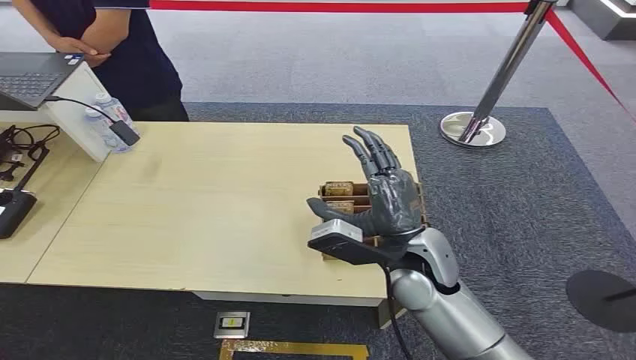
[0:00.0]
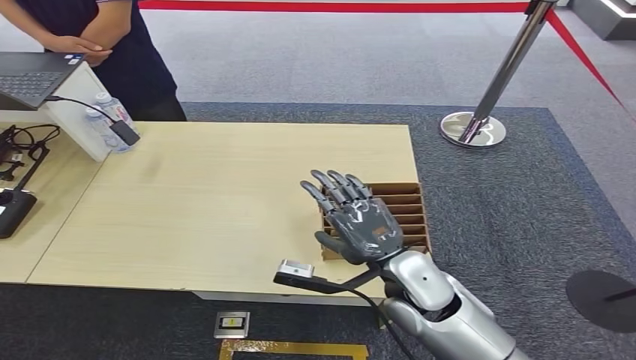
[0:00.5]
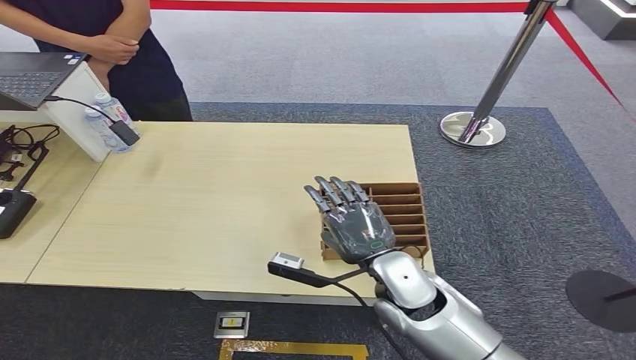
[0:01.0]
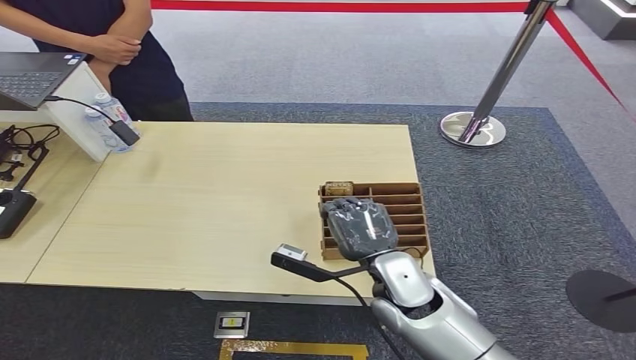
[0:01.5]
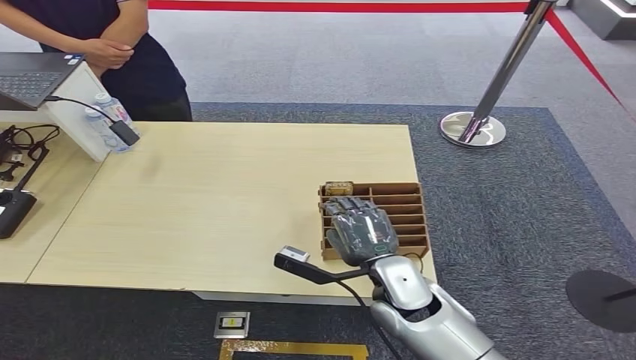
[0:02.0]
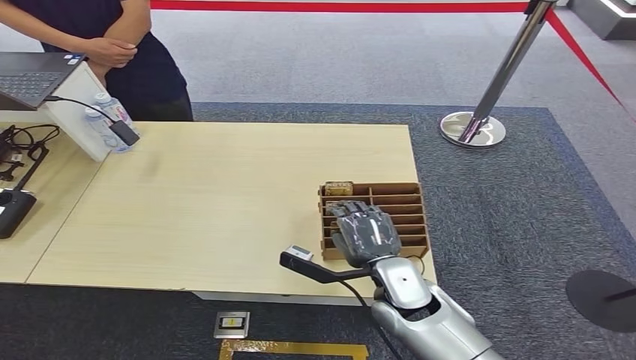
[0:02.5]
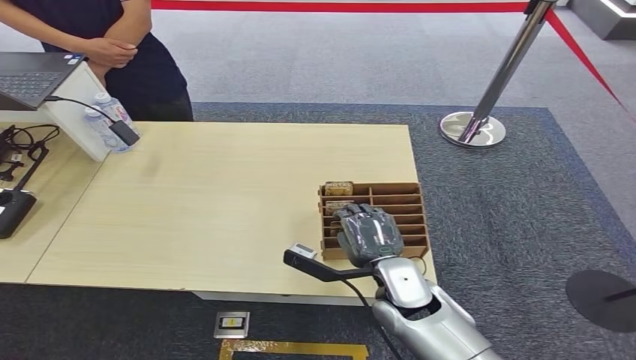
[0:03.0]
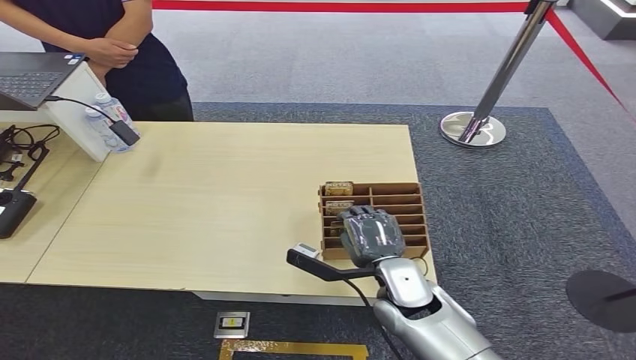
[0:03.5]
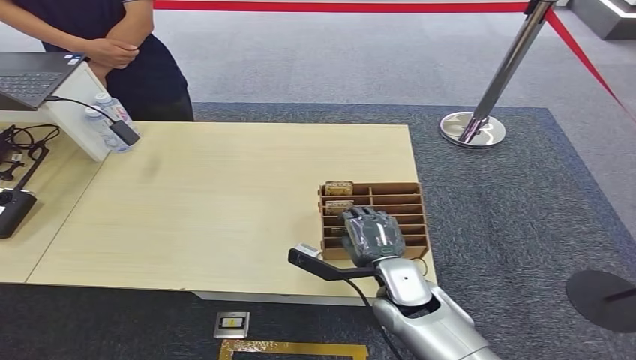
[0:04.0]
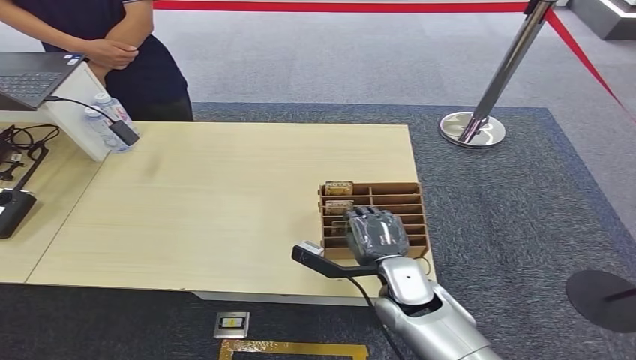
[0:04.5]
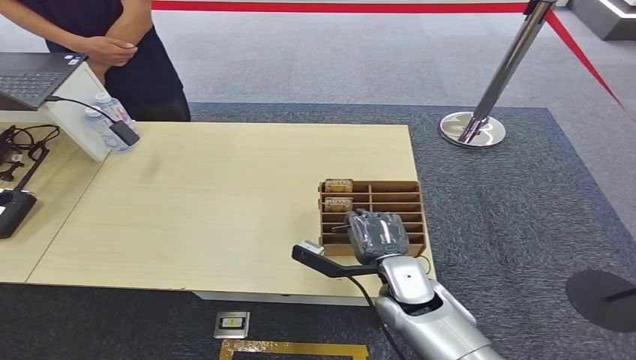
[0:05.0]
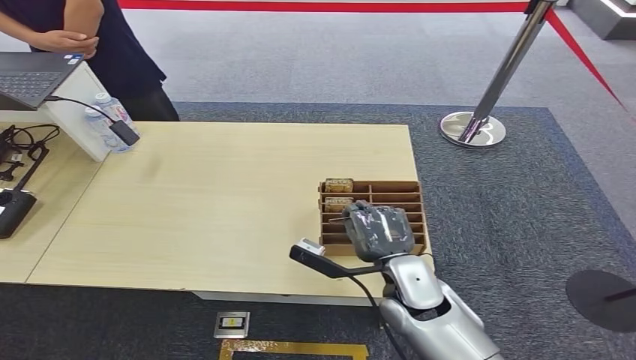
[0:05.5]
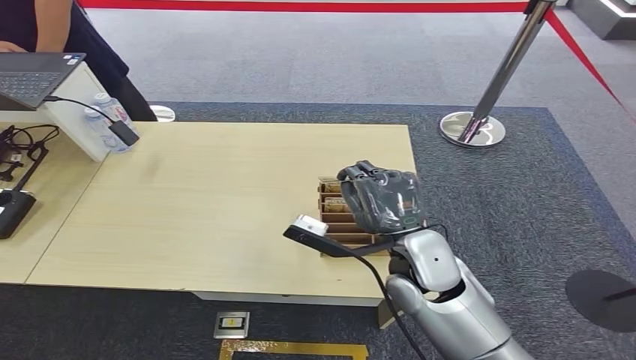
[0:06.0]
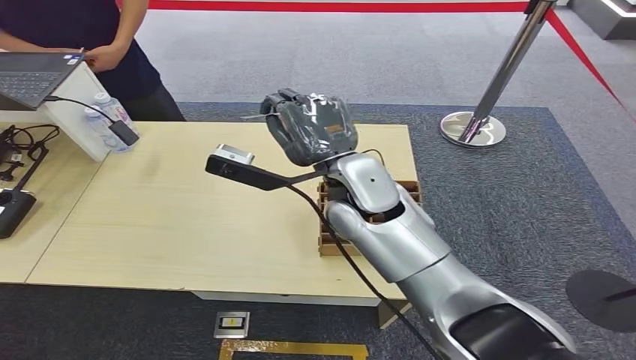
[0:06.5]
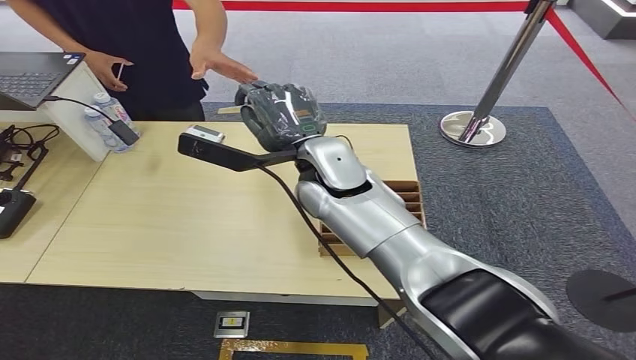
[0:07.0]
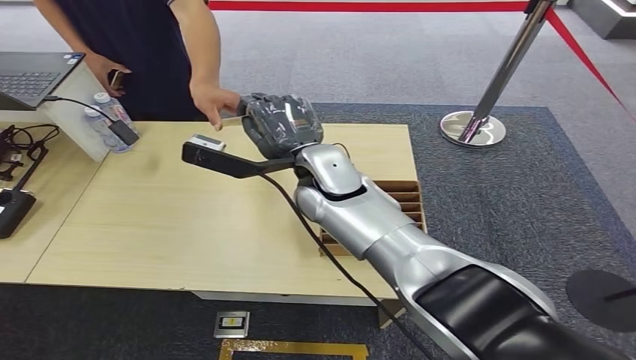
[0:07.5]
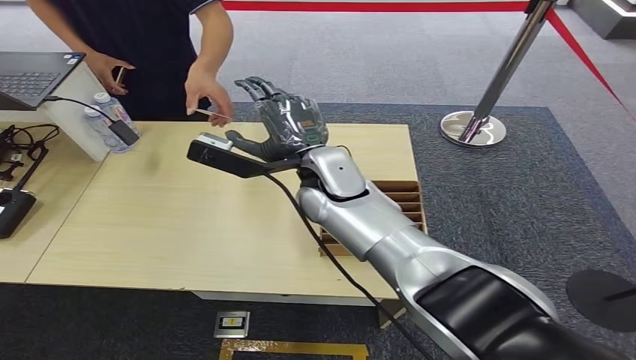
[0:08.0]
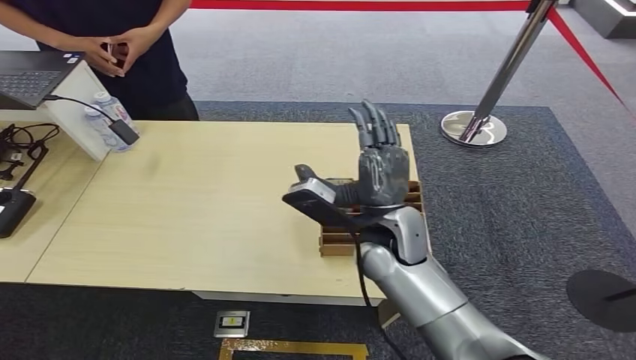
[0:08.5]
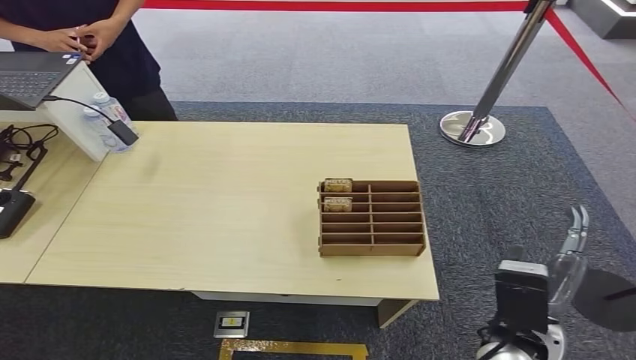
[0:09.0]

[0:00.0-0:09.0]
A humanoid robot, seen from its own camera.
Step, 0:00.0 to 0:06.0: Pick up the key card from the card box.
Step, 0:07.0 to 0:09.0: Hand the key card to the target.
0:02.0 to 0:04.5: The hands move only a little.
0:07.0 to 0:09.0: The right hand moves backward, to the right and downward, approximately 35 cm.

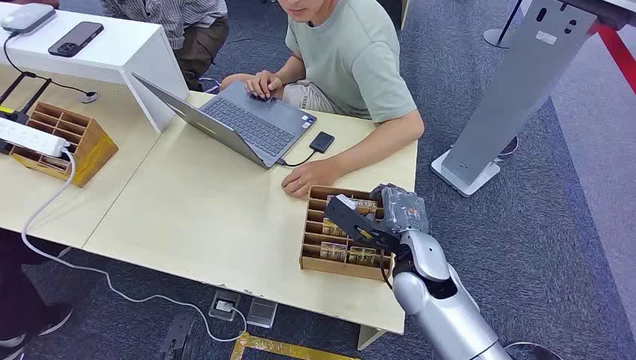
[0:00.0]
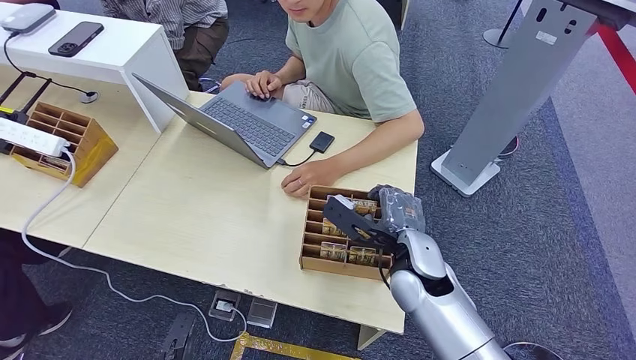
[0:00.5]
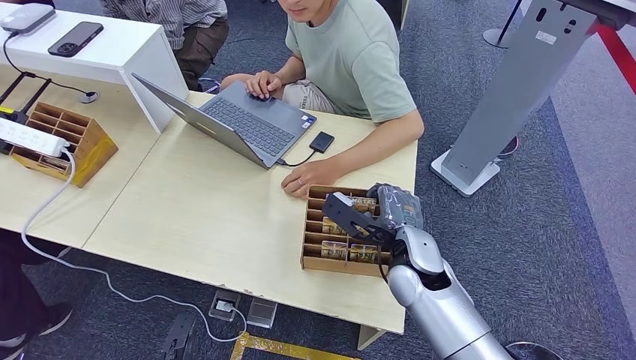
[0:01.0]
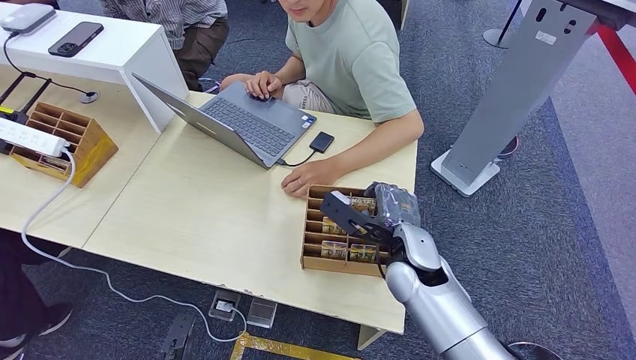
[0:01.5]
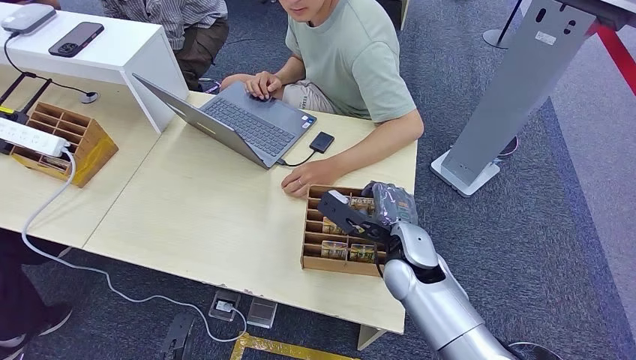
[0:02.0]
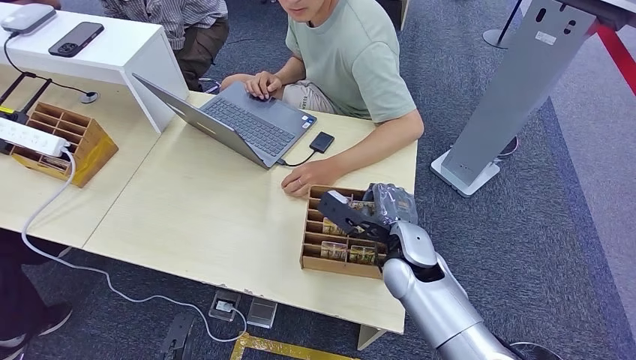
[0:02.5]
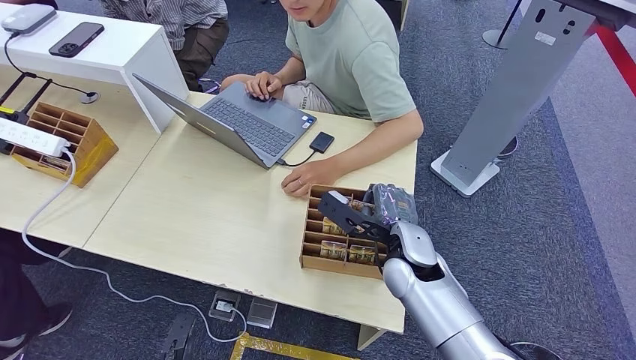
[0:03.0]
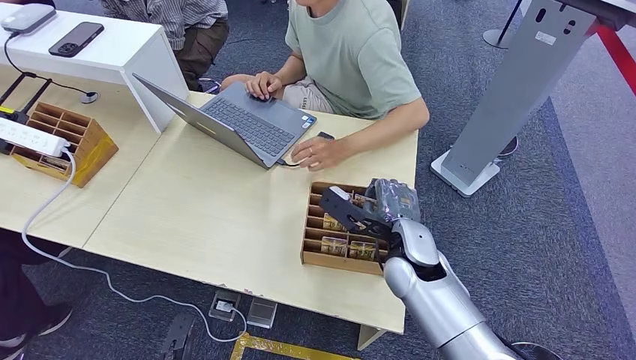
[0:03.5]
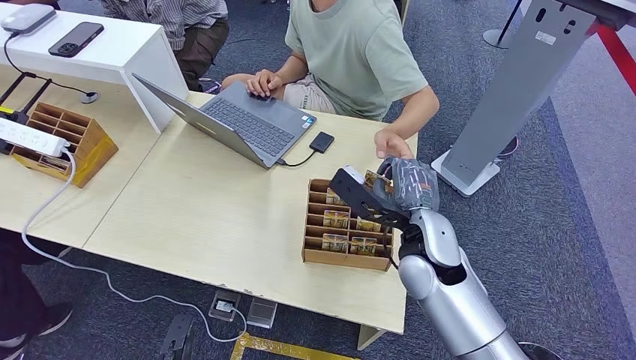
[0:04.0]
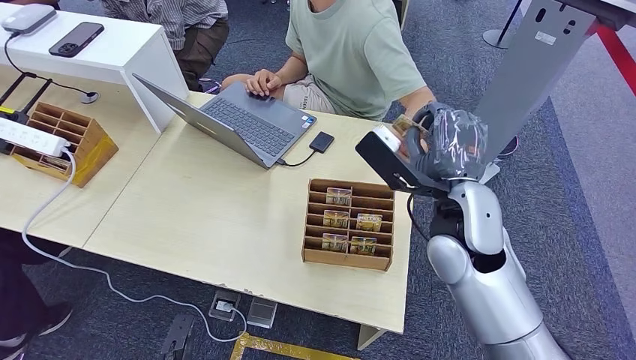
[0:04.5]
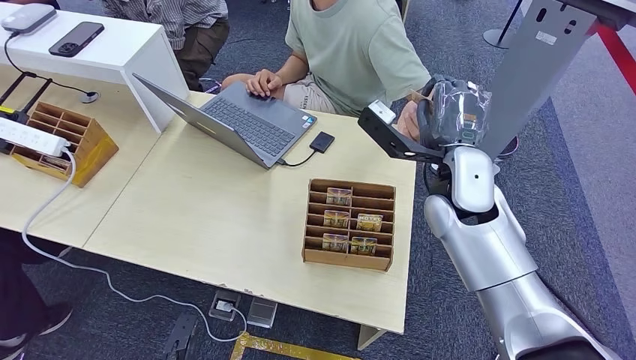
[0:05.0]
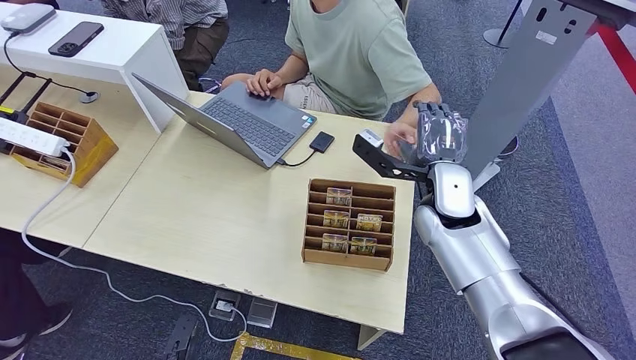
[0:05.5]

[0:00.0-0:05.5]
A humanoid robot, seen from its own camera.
Step, 0:00.0 to 0:03.5: Pick up the key card from the card box.
Step, 0:04.5 to 0:05.5: Hand the key card to the target.
0:02.0 to 0:03.5: Neither hand changes place.
0:03.5 to 0:05.5: The right hand shifts some 10 cm upward and forward.
